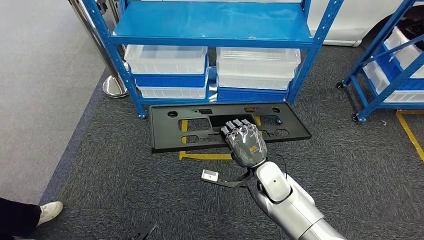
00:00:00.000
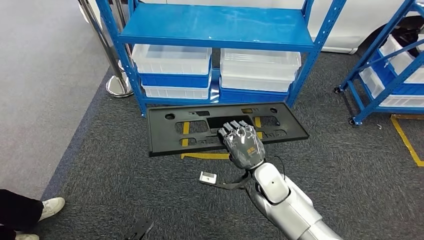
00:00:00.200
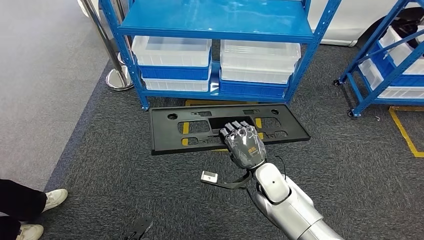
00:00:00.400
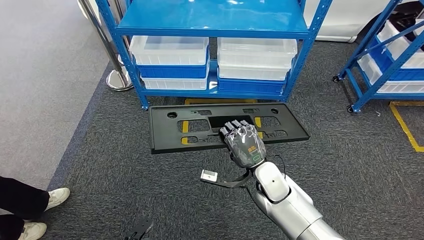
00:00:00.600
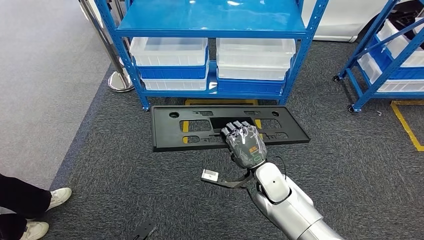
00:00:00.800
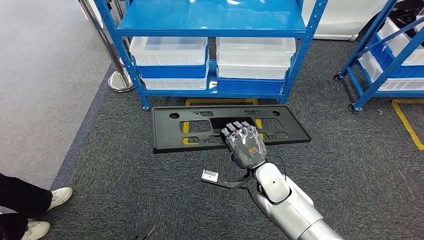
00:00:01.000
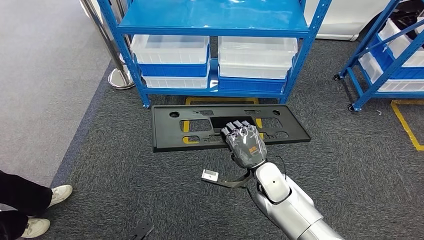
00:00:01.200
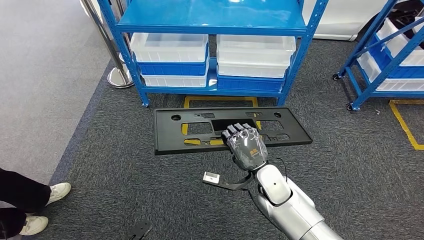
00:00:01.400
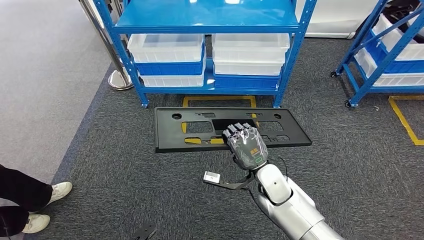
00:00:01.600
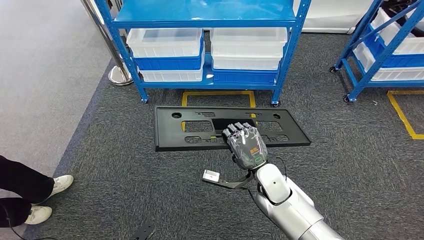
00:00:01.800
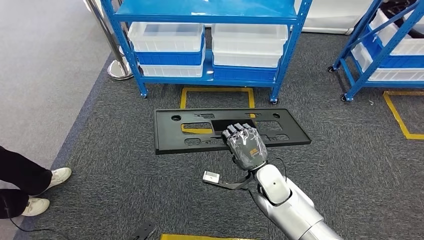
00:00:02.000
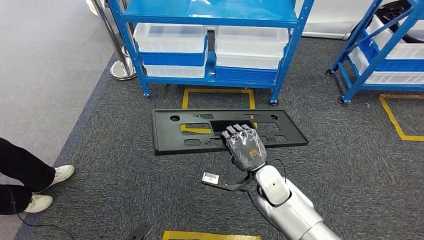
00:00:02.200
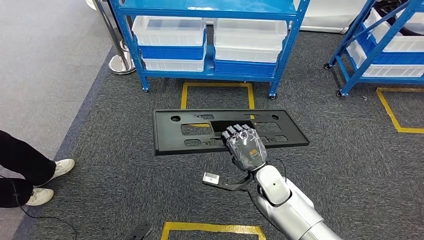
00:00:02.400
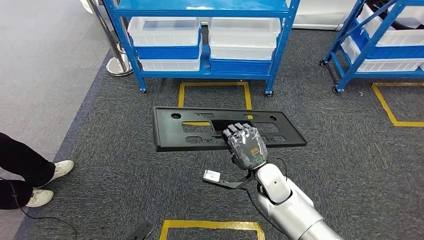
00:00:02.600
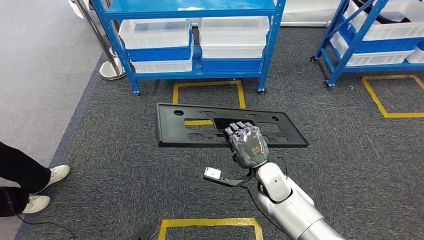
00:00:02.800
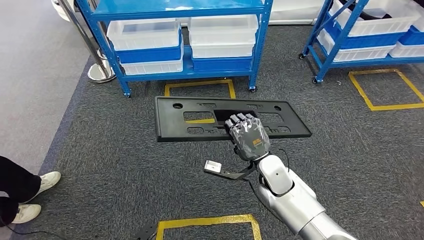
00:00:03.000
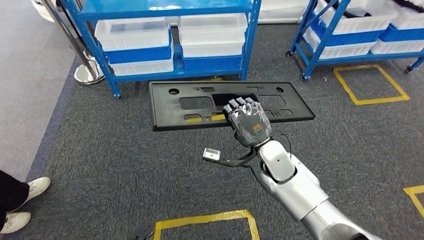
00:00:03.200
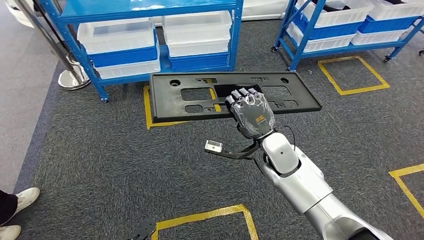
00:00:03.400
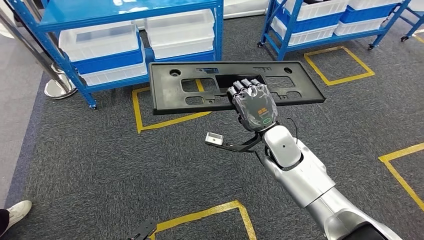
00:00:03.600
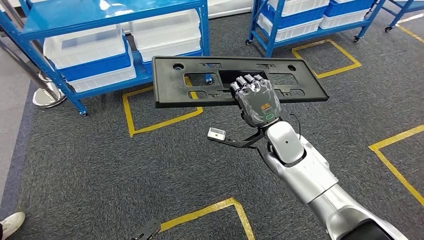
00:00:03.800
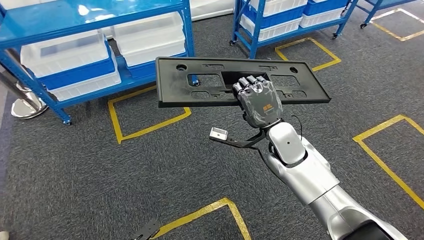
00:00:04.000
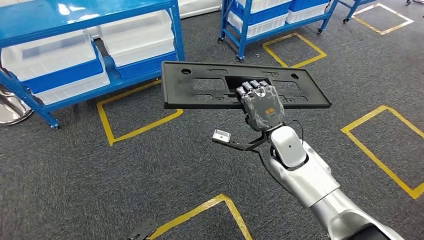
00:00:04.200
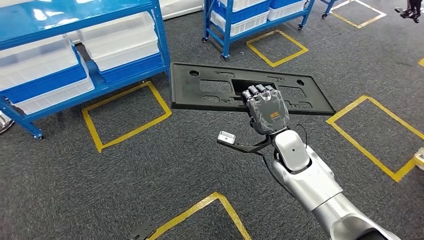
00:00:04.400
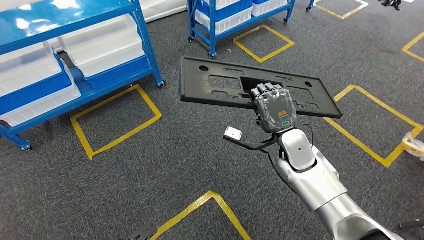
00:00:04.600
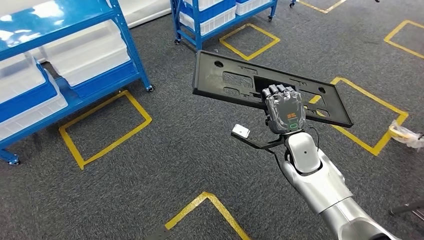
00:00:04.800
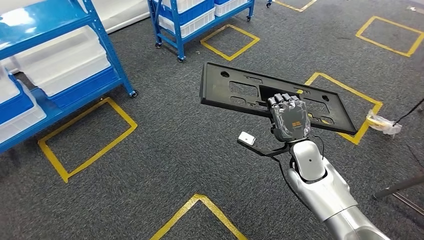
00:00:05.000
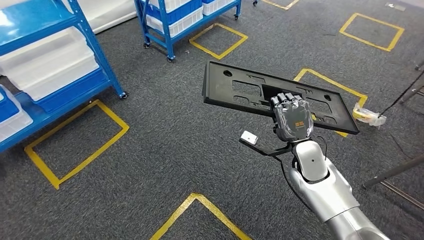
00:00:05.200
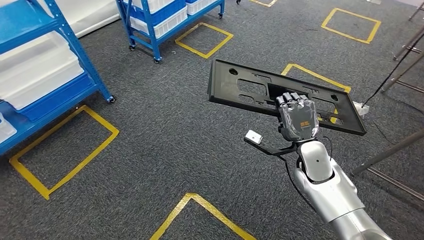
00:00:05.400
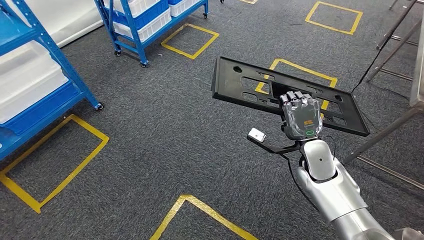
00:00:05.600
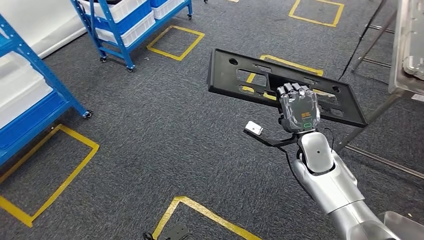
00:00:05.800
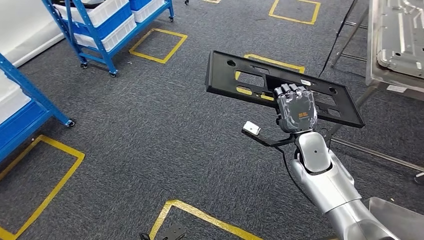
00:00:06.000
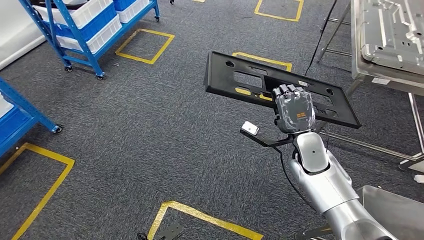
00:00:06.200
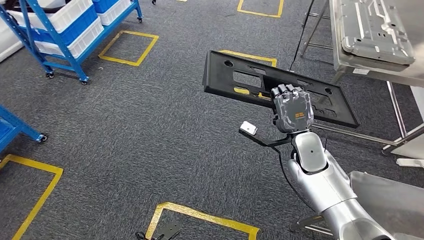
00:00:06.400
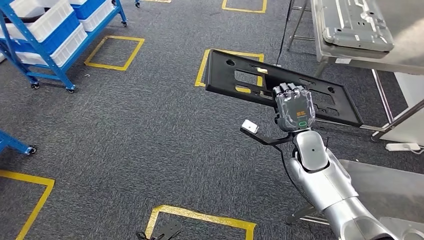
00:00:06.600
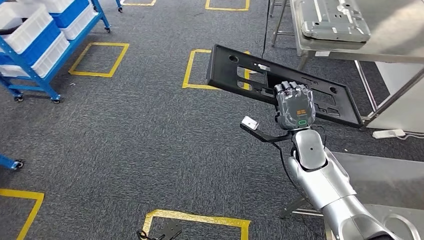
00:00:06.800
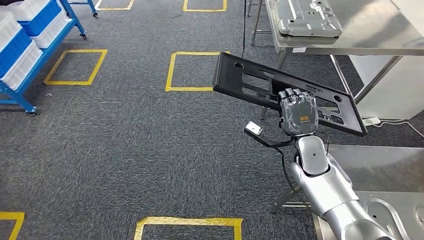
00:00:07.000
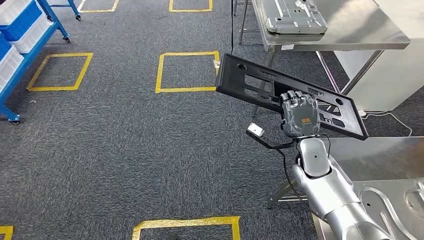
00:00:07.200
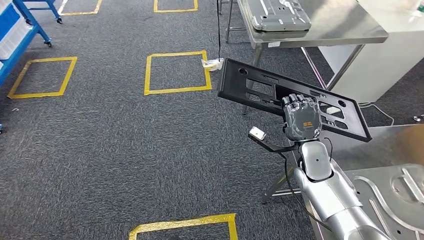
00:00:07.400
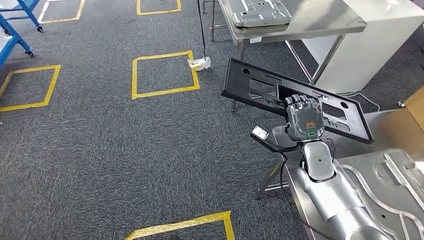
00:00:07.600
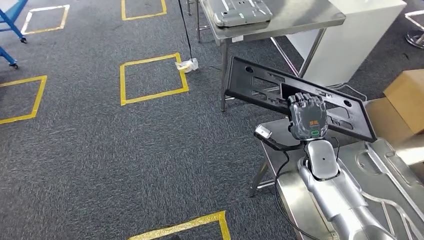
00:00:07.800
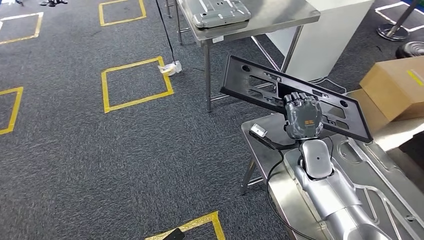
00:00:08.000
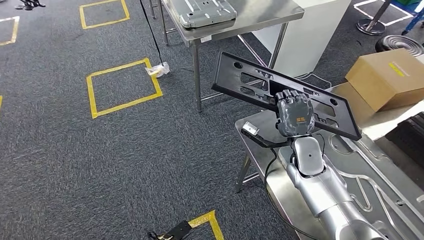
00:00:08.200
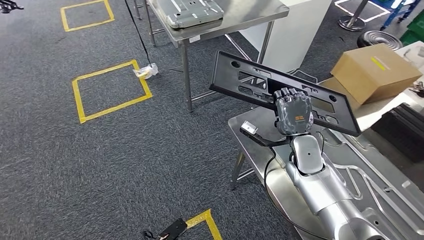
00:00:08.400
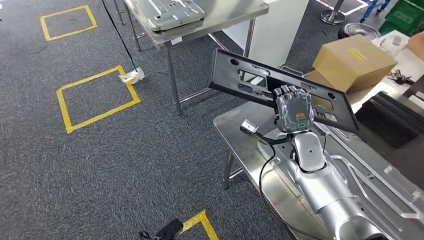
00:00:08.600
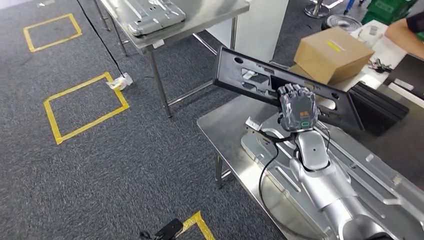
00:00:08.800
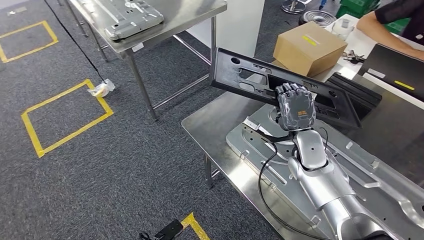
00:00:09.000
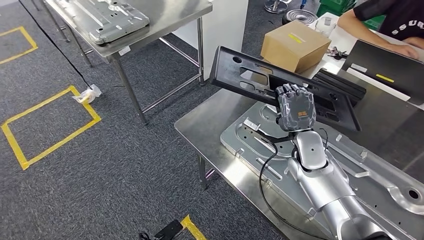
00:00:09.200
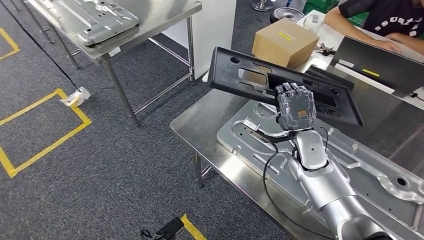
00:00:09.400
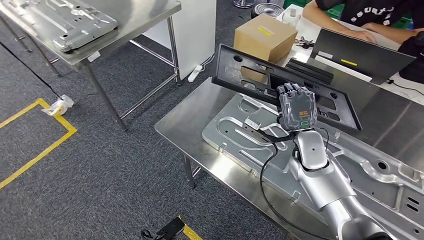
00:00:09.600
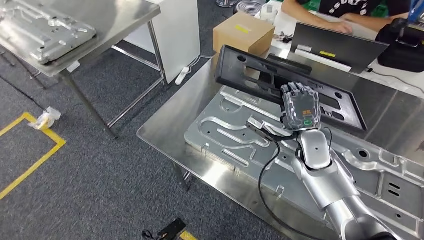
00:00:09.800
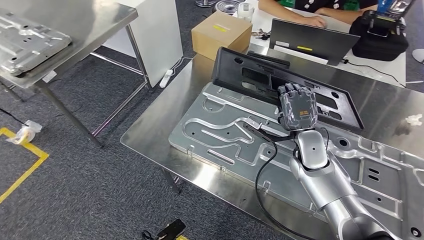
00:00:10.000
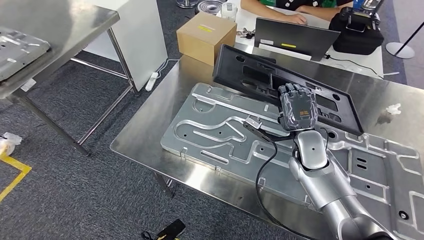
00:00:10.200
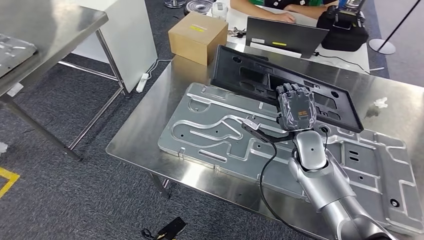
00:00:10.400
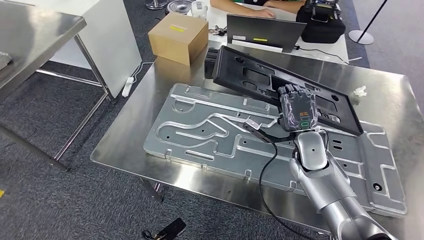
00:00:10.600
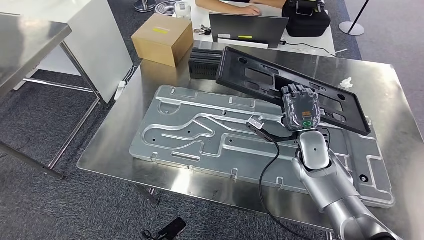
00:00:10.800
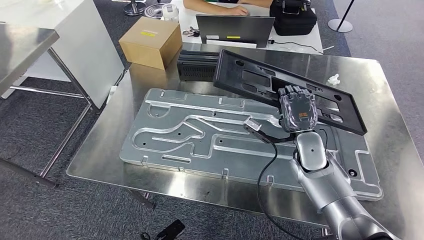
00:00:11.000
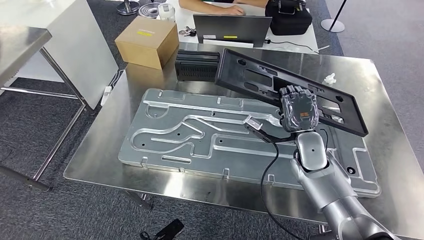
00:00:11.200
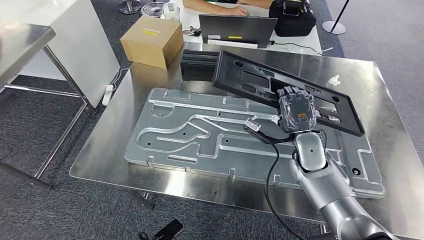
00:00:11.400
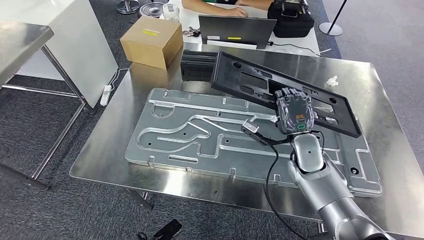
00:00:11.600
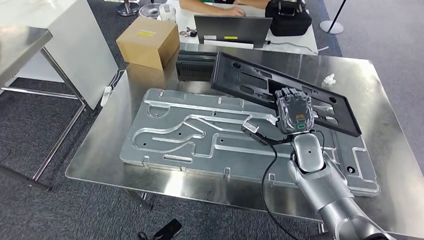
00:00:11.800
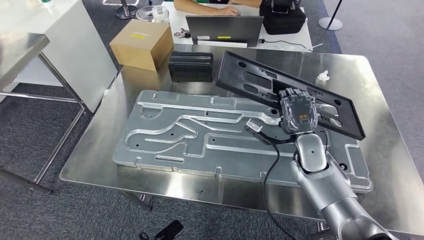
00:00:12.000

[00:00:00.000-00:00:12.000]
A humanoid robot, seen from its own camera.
Step, 00:00:00.000 to 00:00:08.200: Move the large material to the workbench.

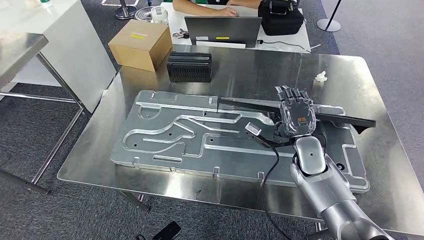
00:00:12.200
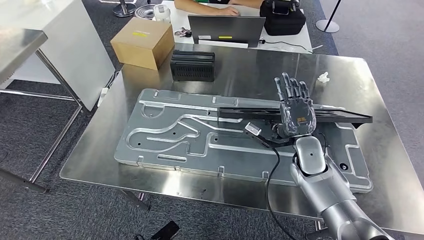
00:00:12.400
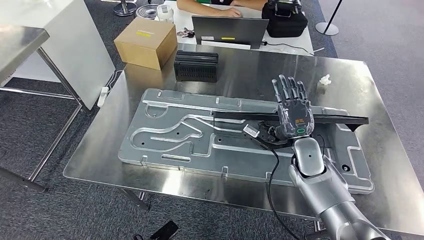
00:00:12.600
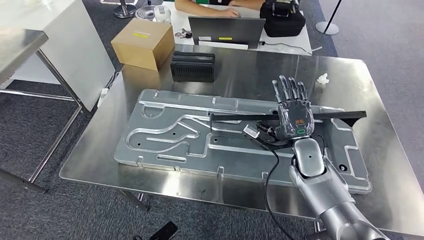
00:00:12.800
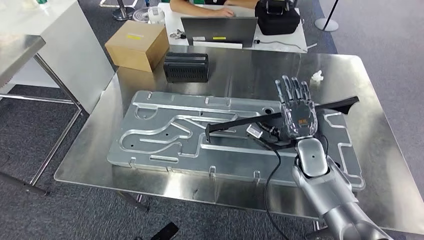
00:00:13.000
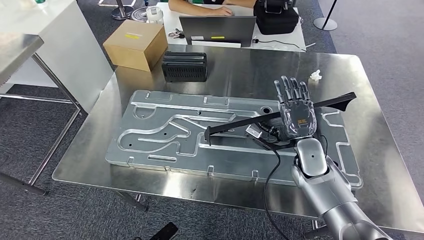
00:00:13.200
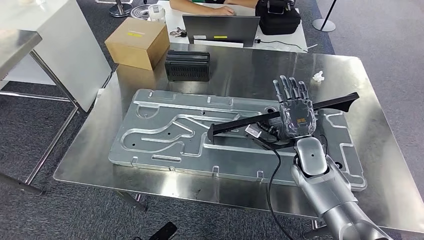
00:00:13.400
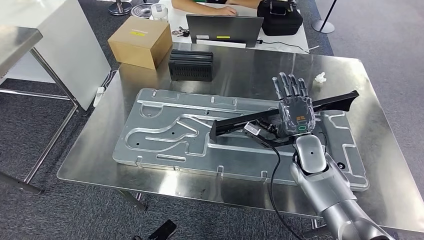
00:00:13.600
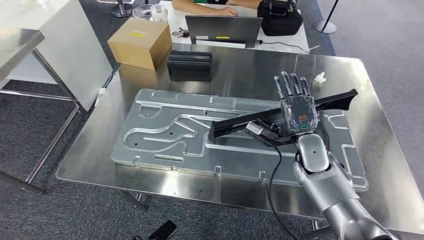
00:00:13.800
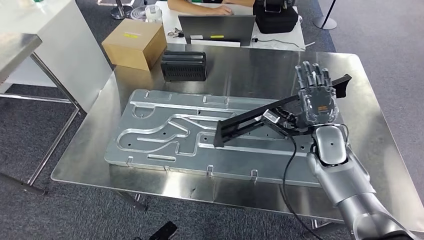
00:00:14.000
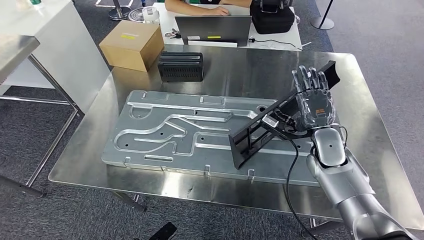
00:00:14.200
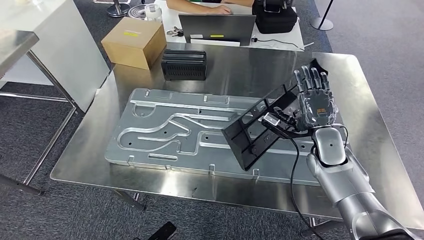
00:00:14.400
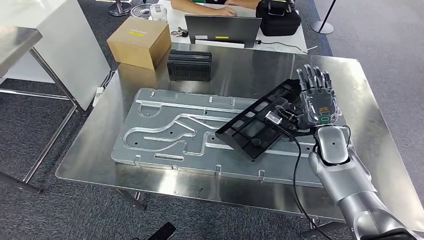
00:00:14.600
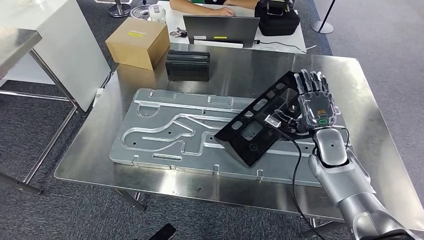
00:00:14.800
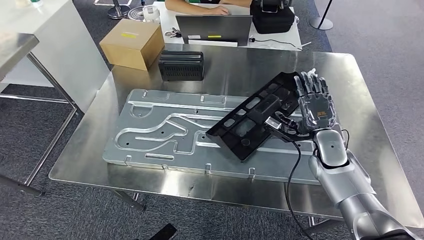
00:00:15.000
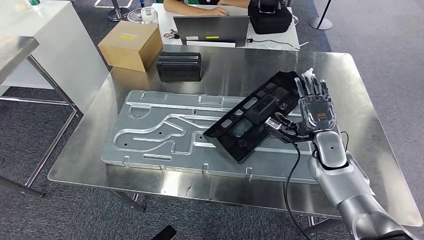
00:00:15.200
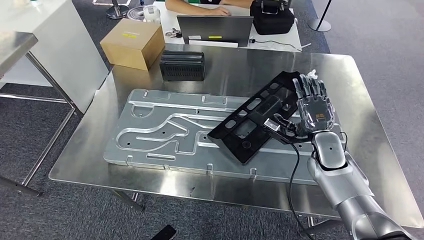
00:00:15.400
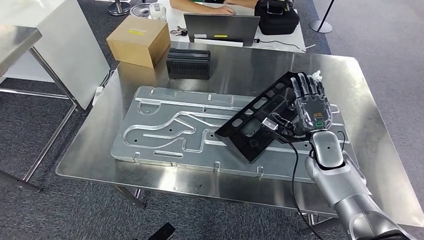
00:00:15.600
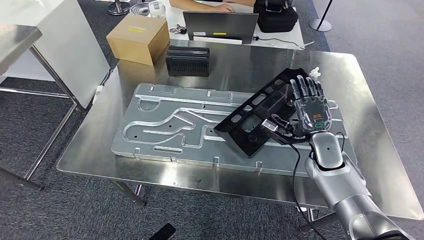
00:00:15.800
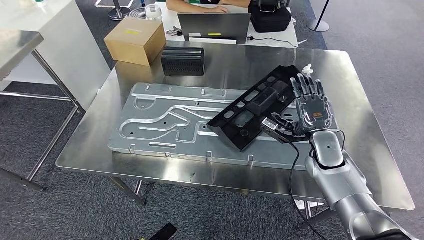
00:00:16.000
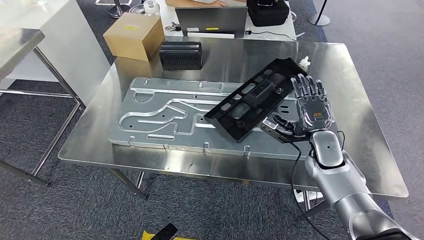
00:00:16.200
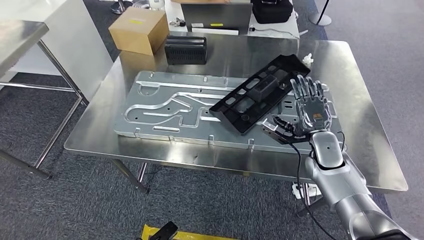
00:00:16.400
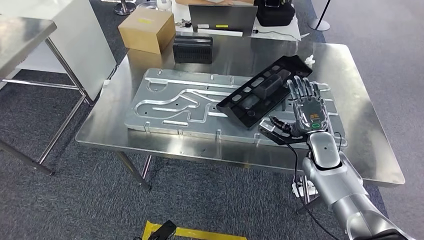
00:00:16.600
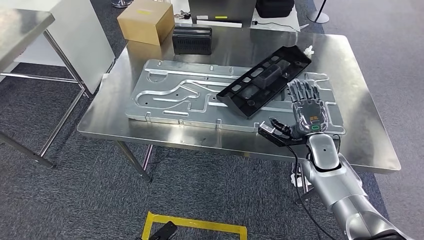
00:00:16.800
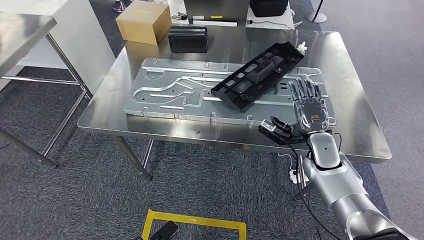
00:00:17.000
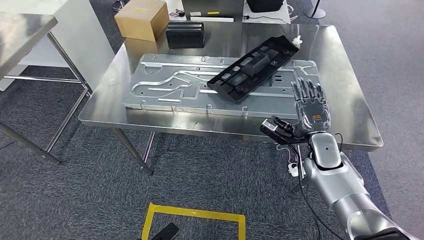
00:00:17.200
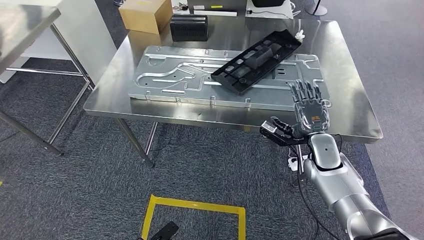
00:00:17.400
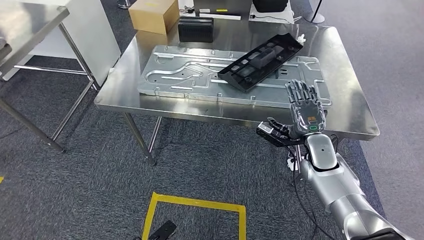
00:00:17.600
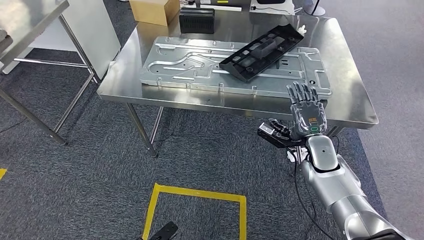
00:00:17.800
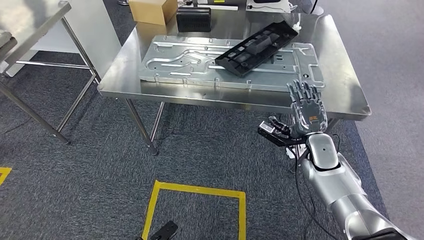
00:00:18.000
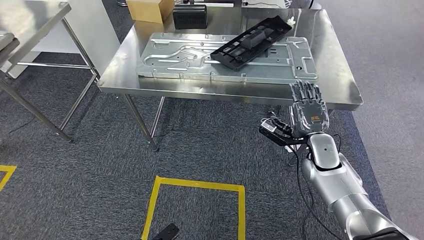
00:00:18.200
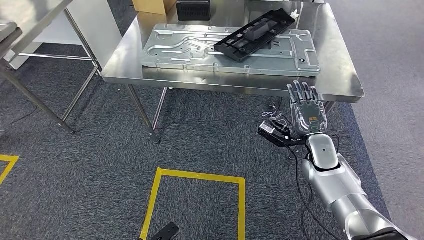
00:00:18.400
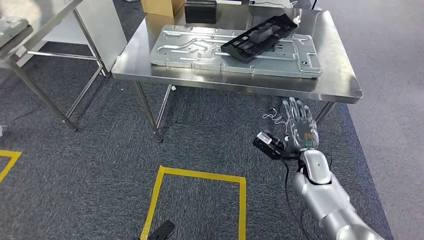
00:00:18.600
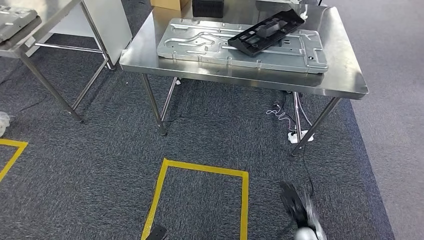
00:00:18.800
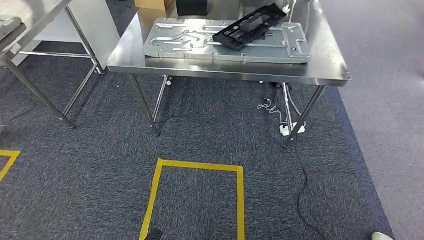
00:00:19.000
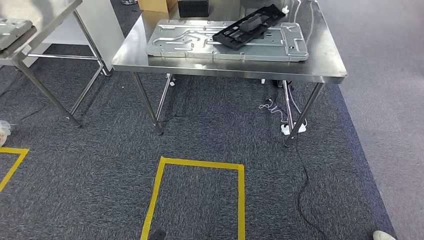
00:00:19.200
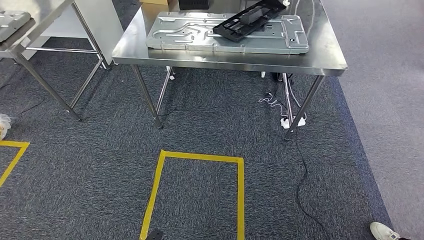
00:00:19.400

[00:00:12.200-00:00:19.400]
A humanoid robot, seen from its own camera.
Step, 00:00:12.200 to 00:00:17.800: Insert the large material into the corresponding slot on the workbench.
